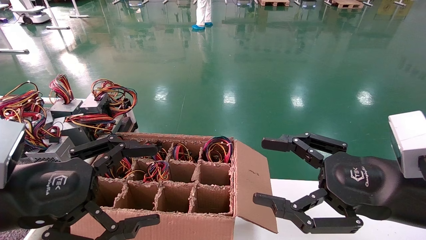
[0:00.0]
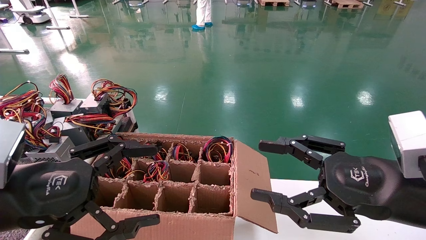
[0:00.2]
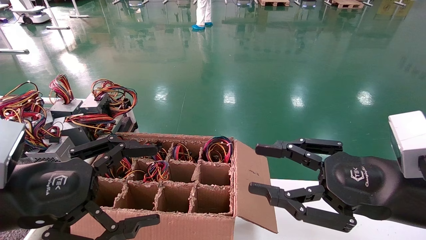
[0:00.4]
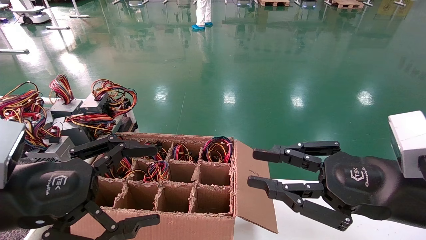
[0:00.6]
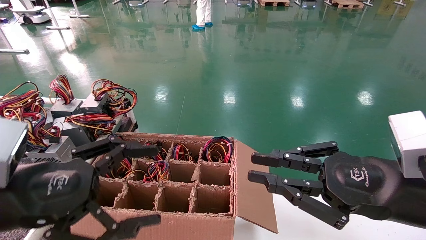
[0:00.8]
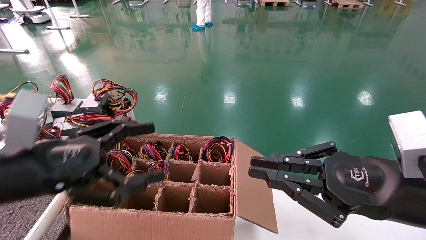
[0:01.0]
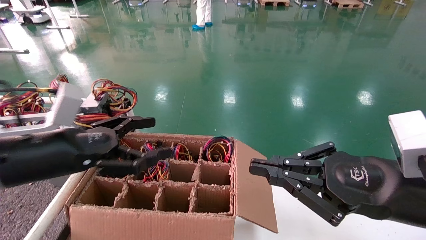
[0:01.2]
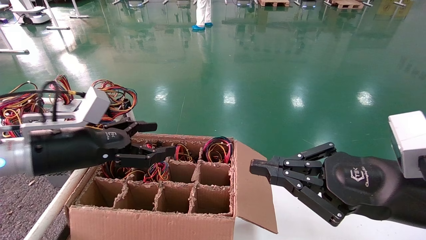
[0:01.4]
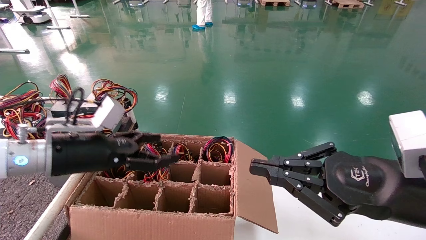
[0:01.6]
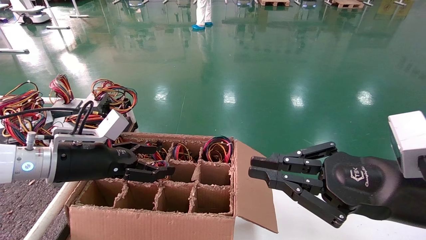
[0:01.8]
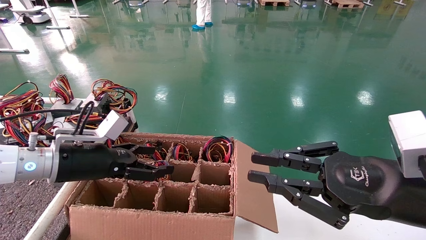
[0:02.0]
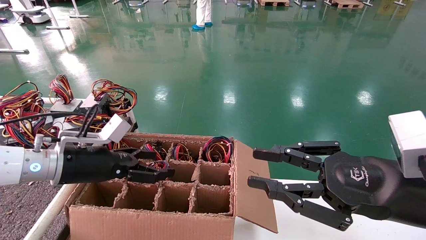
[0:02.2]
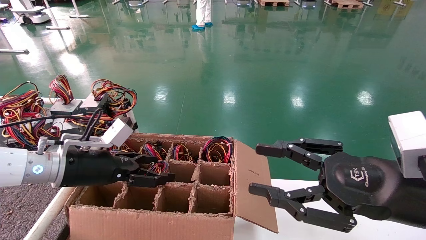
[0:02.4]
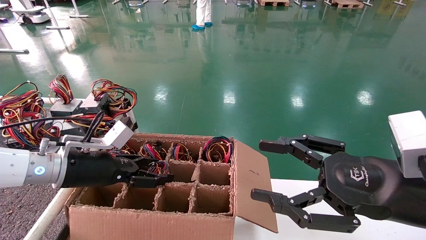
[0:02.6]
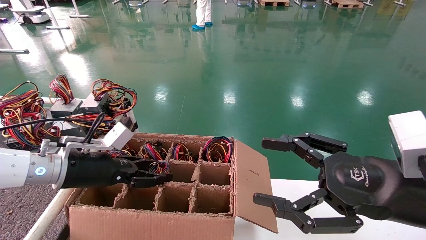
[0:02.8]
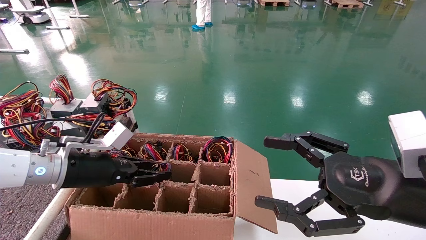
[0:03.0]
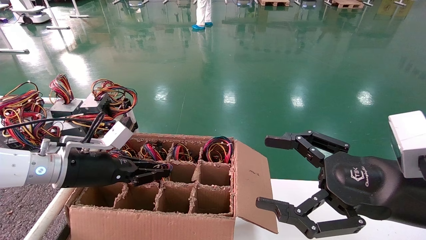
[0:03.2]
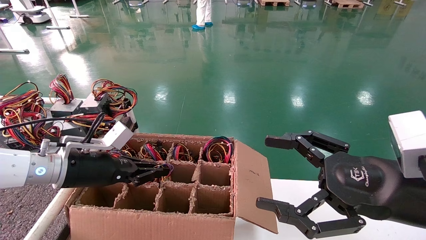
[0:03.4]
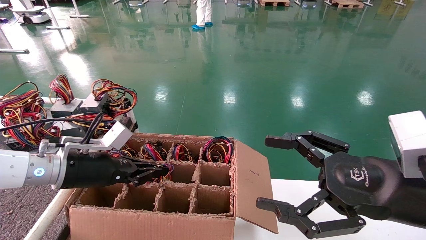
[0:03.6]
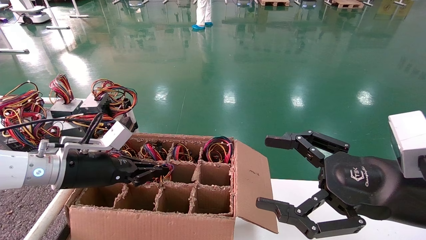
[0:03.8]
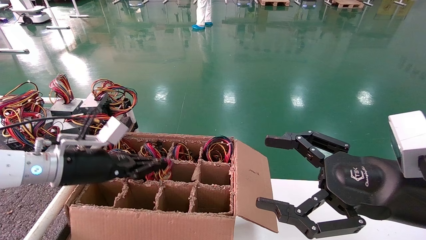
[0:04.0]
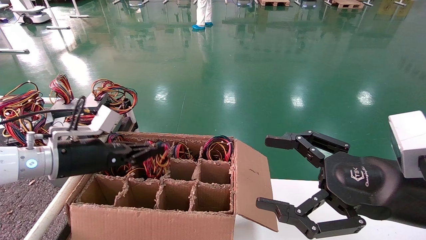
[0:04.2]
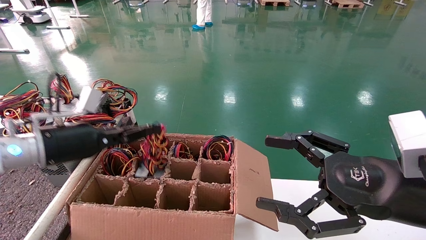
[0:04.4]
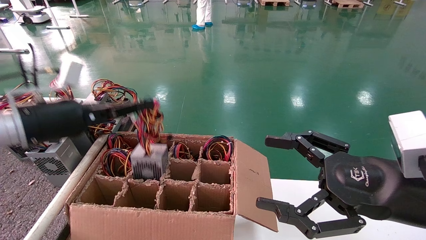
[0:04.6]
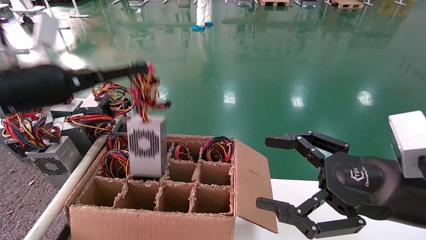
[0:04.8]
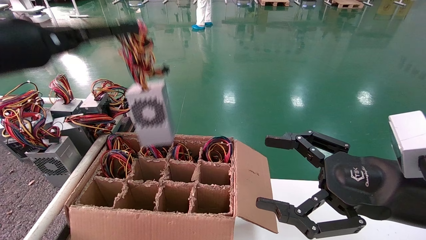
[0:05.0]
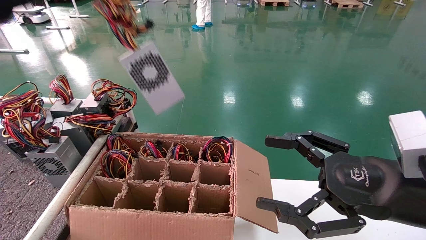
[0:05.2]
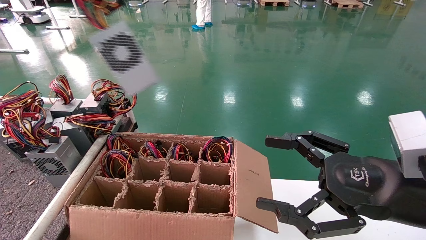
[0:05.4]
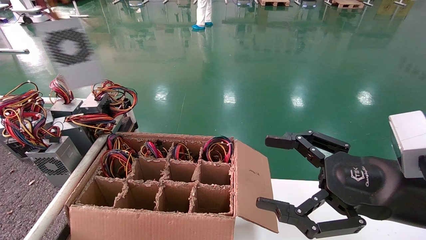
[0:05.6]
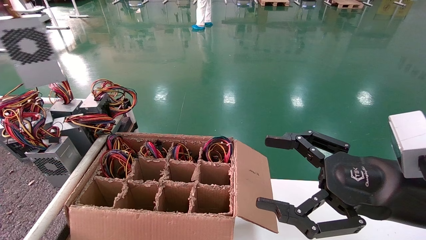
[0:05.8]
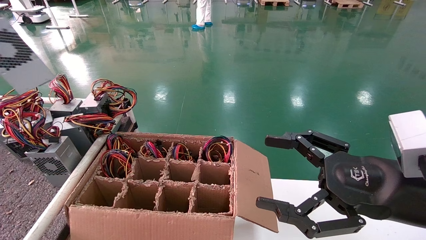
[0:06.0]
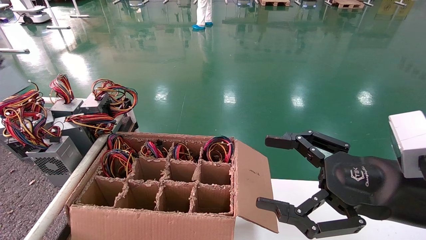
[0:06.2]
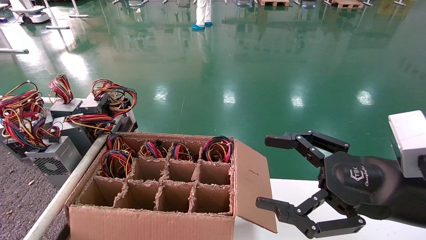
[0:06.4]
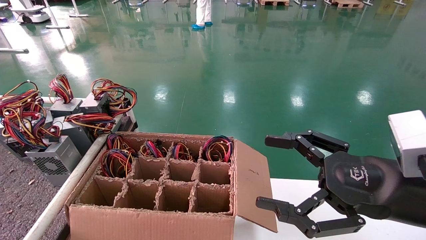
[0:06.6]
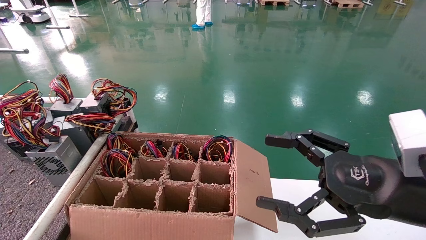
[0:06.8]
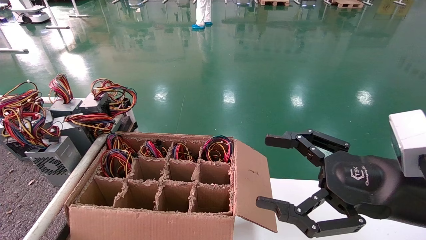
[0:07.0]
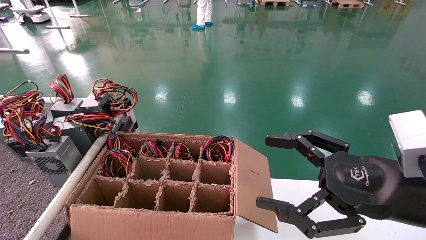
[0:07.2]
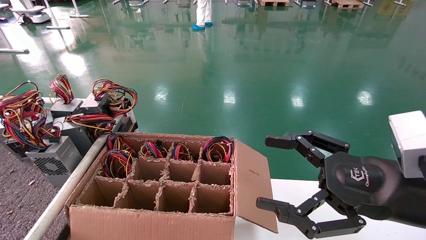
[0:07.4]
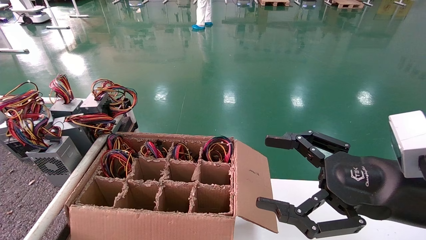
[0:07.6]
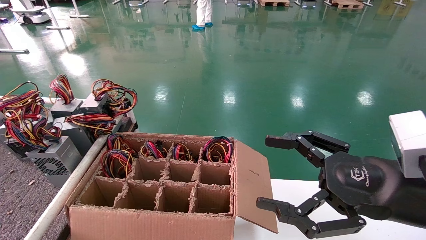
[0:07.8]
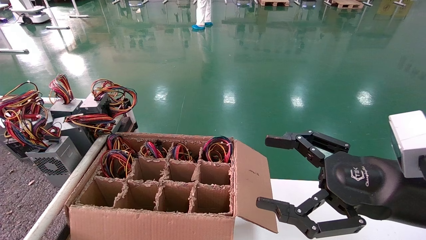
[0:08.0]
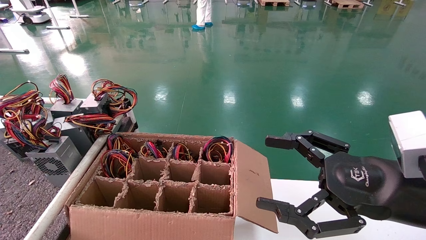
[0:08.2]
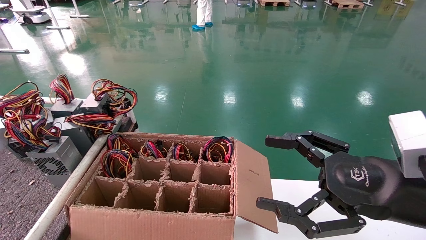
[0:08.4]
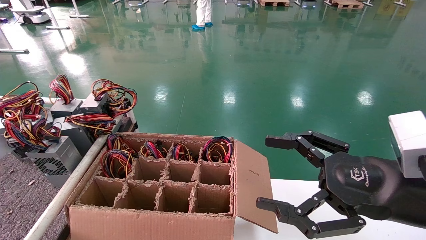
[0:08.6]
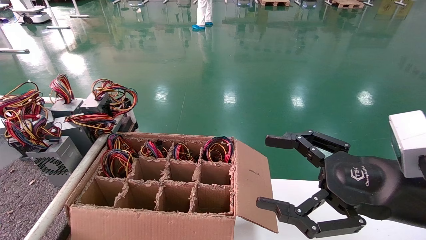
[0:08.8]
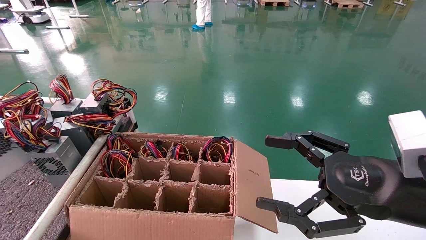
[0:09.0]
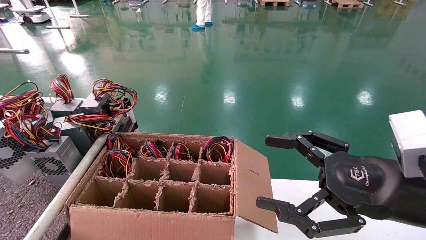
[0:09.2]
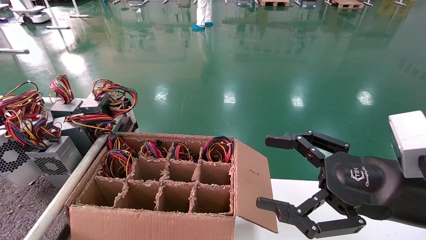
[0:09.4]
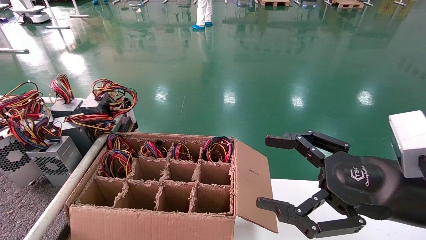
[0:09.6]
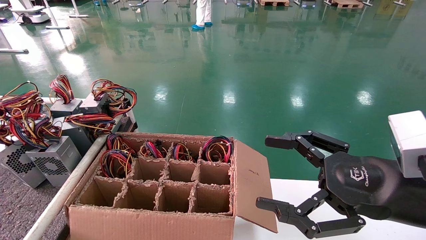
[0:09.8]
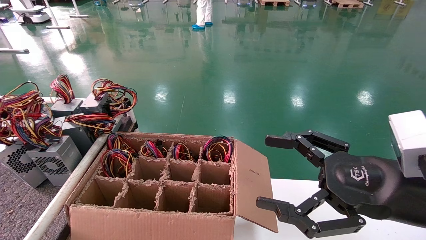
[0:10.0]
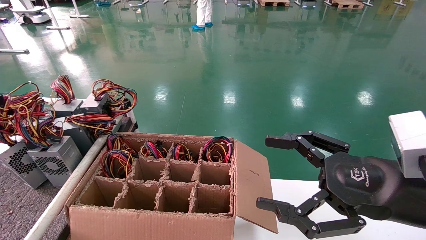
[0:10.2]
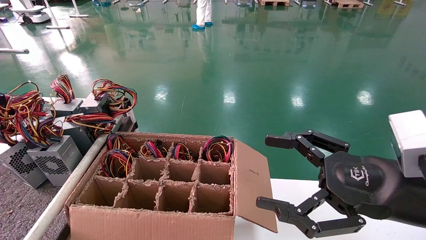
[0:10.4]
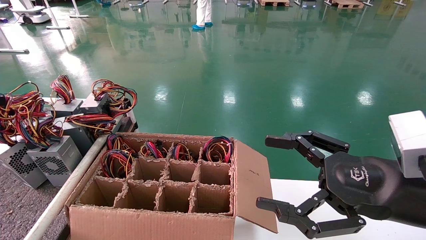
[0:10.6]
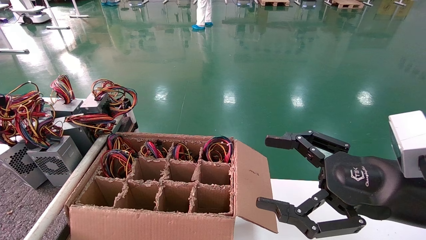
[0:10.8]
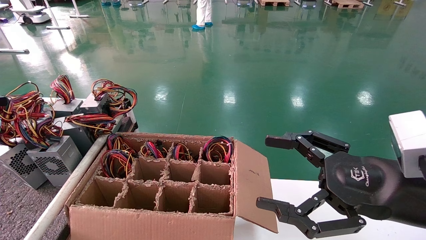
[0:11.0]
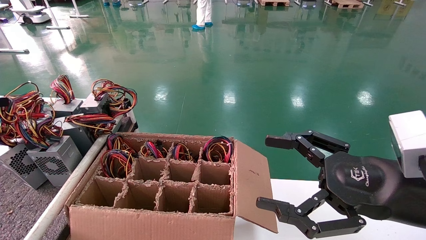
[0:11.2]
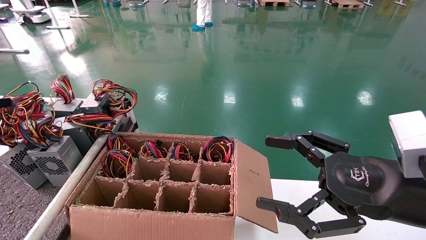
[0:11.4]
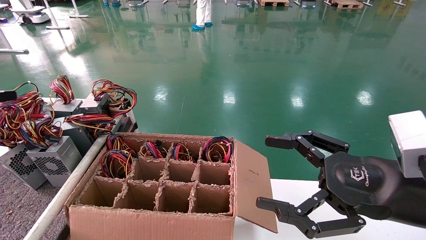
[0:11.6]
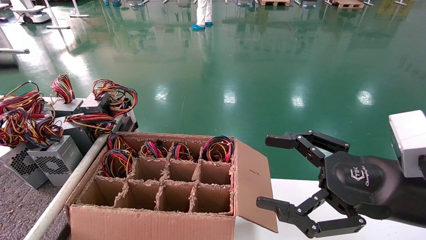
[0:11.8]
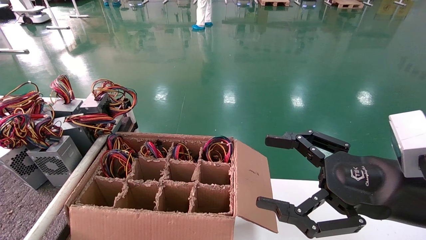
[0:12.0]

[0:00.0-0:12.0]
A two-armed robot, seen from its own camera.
Step, 0:01.2 to 0:04.0: Grab and lift the power supply from the large box.
Step, 0:04.2 to 0:11.4: Place the power supply on the operating table.
0:00.0 to 0:01.6: The left gripper travels forward by some 15 cm; the right gripper closes its fingers.
0:01.6 to 0:03.0: The right gripper opens its fingers; the left gripper shifts by approximately 5 cm, and closes its fingers.
0:03.0 to 0:04.4: The left gripper moves upward, about 5 cm, and closes.
0:04.4 to 0:06.0: The left gripper goes roughly 35 cm upward, to the left and backward.
0:06.0 to 0:07.6: The left gripper is displaced to the left and downward by roughly 10 cm.
0:07.6 to 0:09.0: The left gripper shifts about 5 cm downward.
0:09.0 to 0:10.4: The left gripper travels forward by approximately 5 cm.
0:10.4 to 0:12.0: The left gripper is displaced upward and to the right by about 10 cm, and opens up.

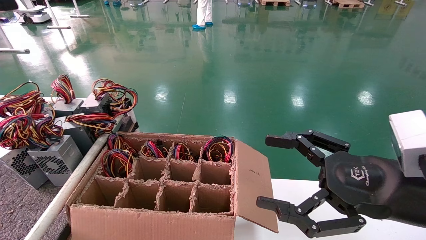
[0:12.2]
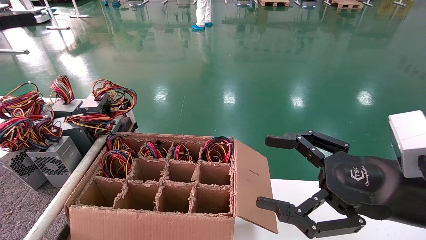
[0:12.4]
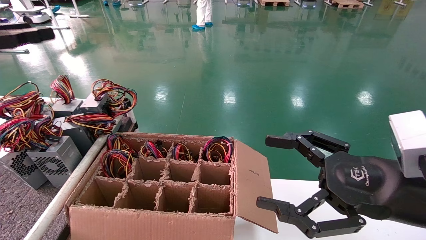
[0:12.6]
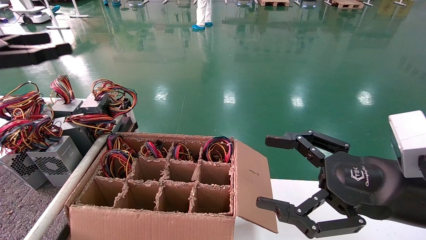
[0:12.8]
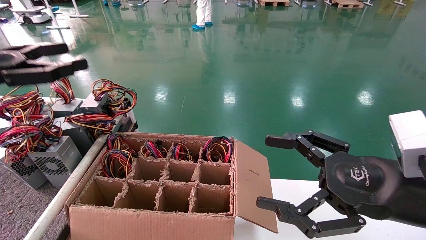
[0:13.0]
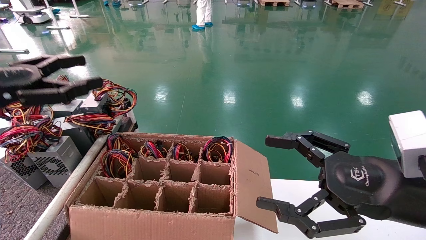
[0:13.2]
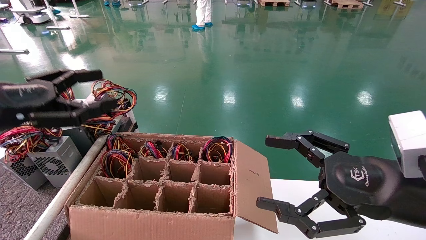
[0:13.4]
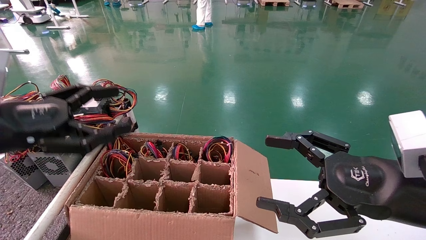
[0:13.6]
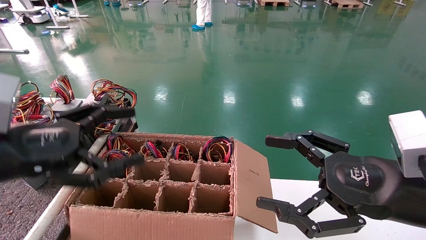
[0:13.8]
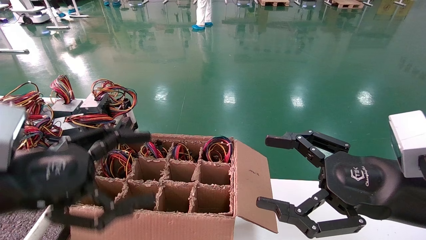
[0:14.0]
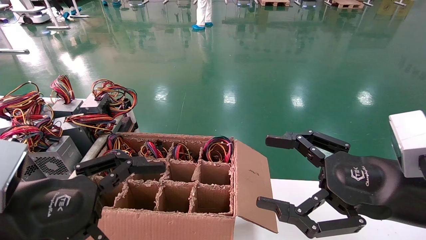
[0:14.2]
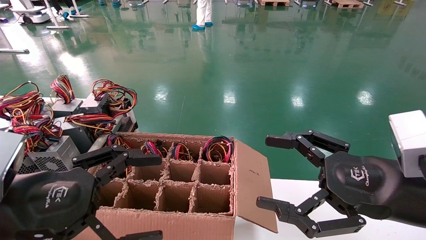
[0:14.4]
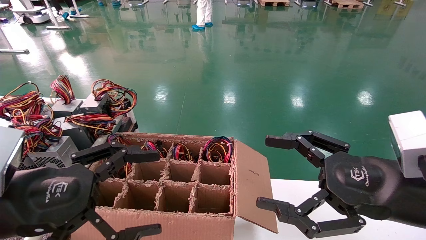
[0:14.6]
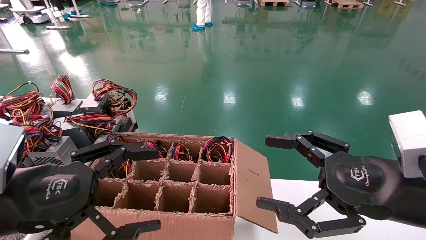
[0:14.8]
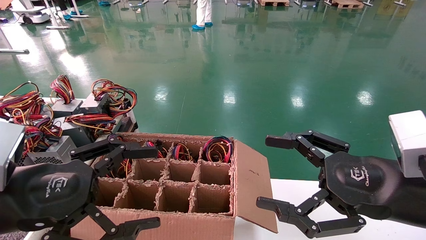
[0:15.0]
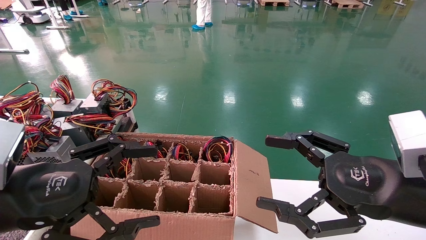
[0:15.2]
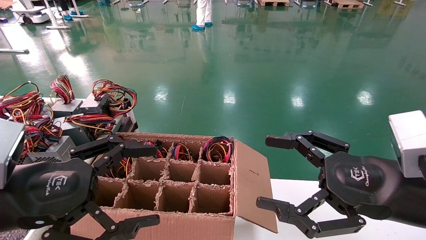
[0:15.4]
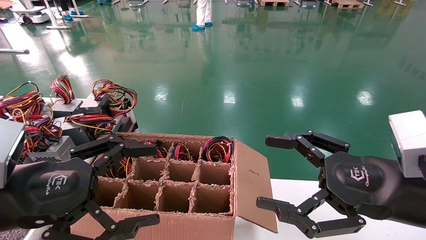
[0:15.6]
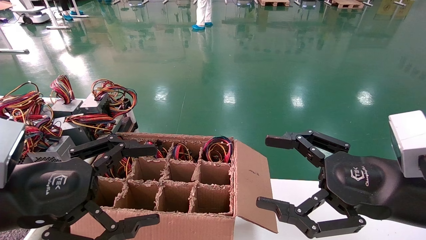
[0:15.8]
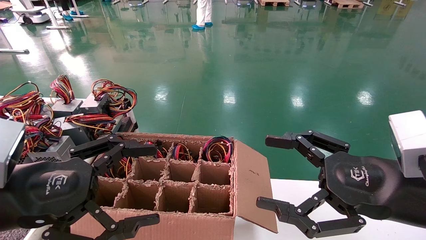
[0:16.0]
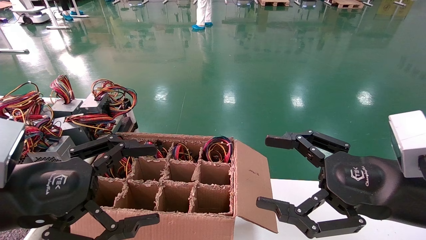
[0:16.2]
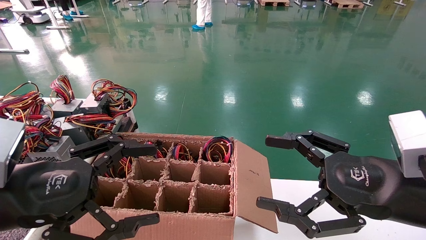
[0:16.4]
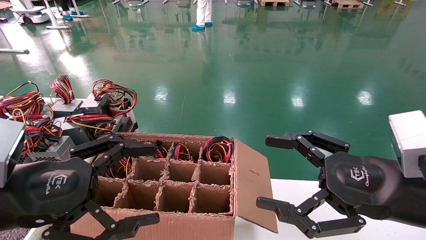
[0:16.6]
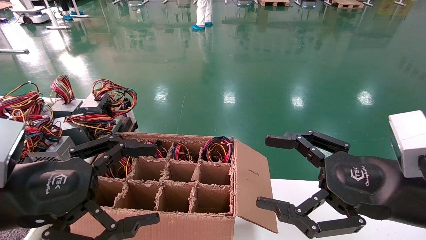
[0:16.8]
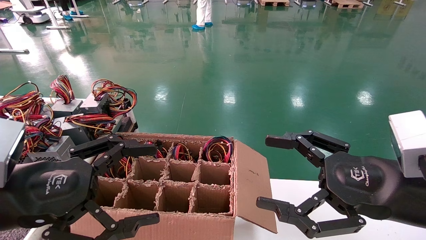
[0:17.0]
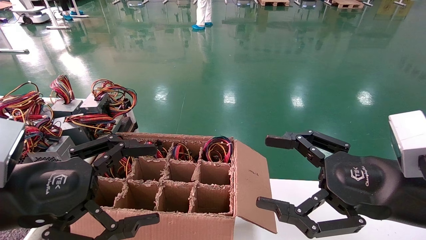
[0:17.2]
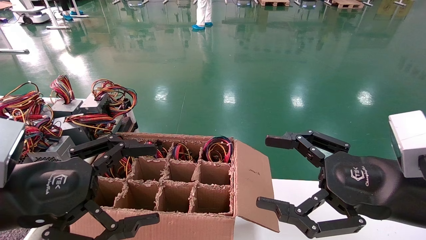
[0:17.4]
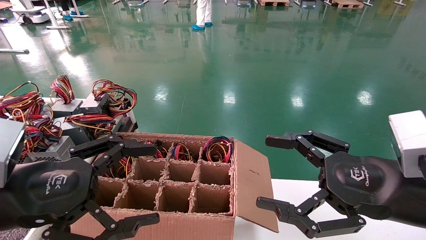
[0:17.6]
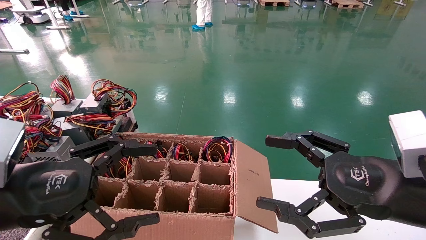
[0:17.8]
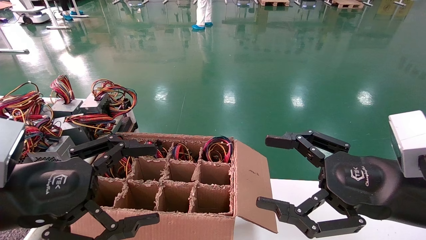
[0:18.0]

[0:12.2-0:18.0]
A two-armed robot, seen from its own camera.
0:12.2 to 0:13.6: The left gripper shifts approximately 20 cm to the right and downward.
0:13.6 to 0:15.0: The left gripper is displaced to the right, downward and backward by approximately 10 cm.
0:15.0 to 0:18.0: Both grippers stay about where they are.
